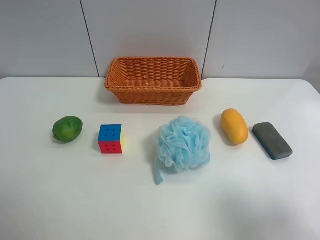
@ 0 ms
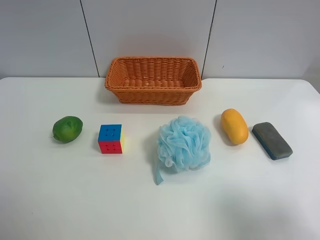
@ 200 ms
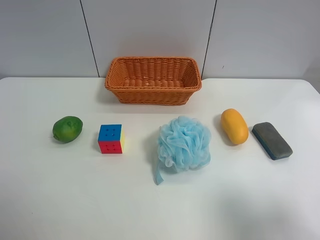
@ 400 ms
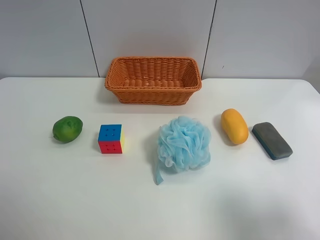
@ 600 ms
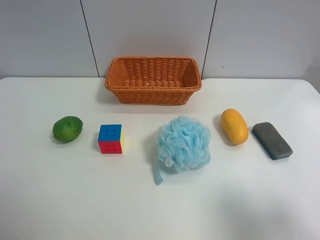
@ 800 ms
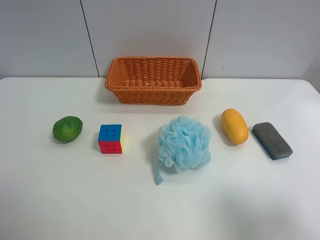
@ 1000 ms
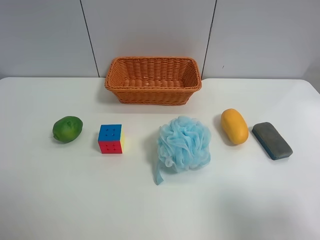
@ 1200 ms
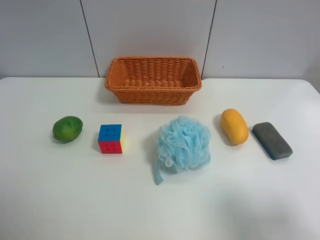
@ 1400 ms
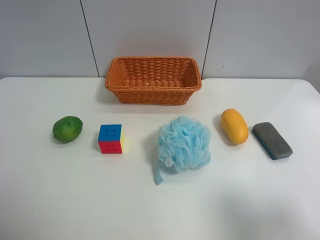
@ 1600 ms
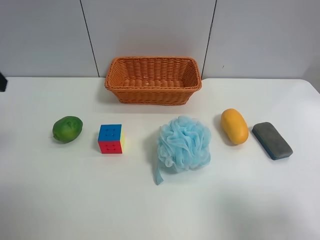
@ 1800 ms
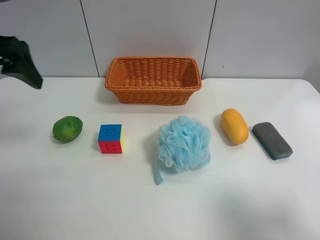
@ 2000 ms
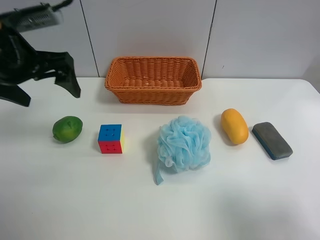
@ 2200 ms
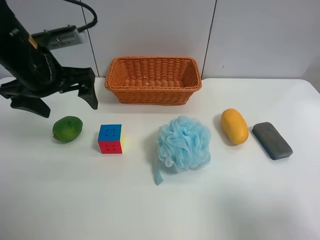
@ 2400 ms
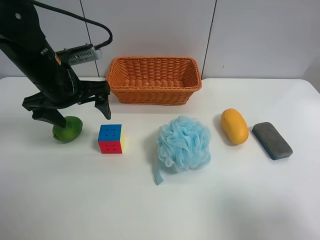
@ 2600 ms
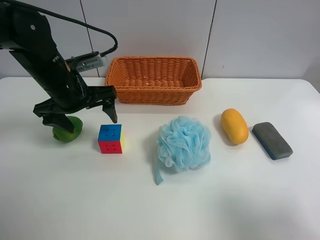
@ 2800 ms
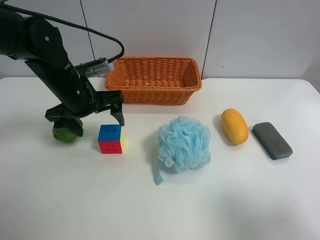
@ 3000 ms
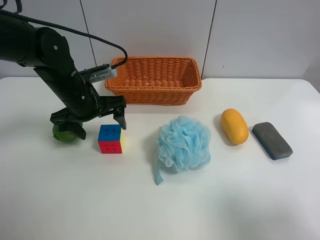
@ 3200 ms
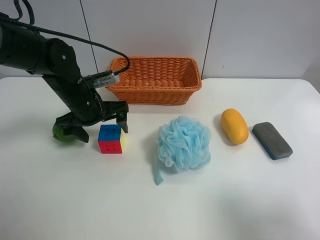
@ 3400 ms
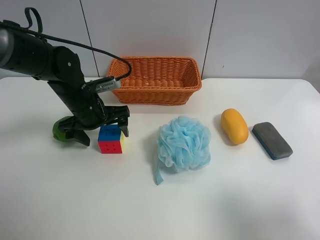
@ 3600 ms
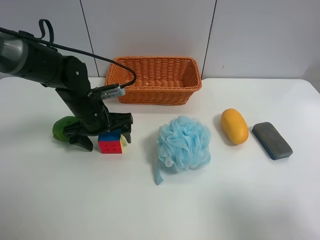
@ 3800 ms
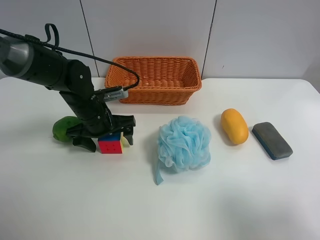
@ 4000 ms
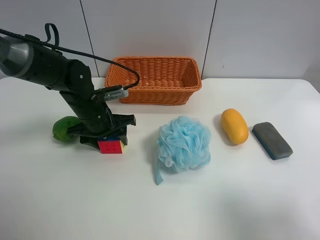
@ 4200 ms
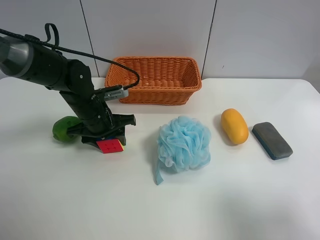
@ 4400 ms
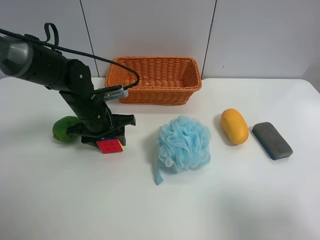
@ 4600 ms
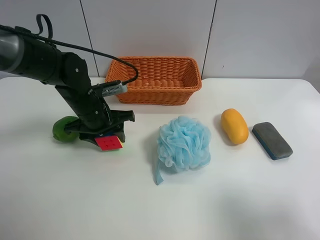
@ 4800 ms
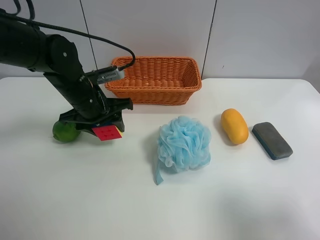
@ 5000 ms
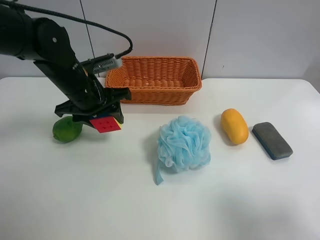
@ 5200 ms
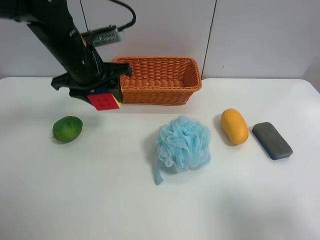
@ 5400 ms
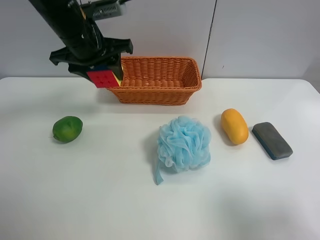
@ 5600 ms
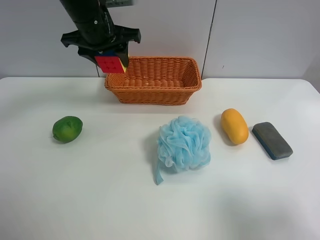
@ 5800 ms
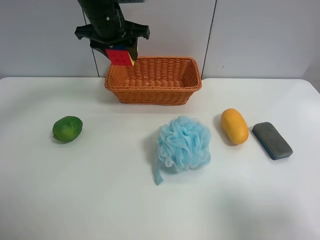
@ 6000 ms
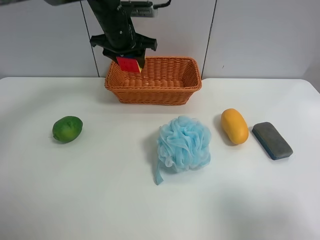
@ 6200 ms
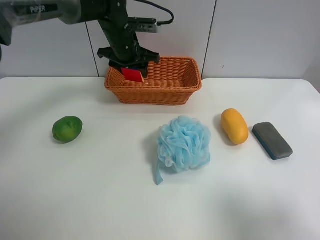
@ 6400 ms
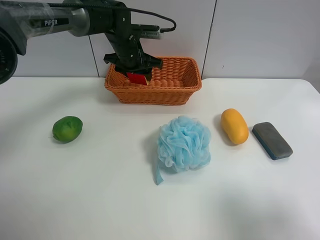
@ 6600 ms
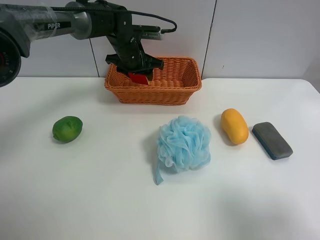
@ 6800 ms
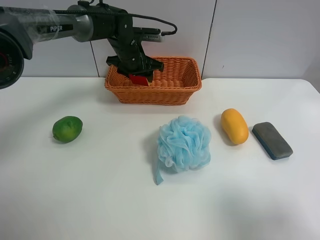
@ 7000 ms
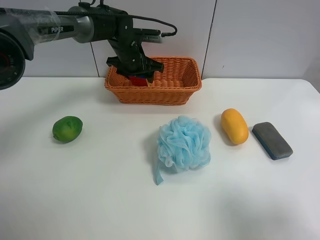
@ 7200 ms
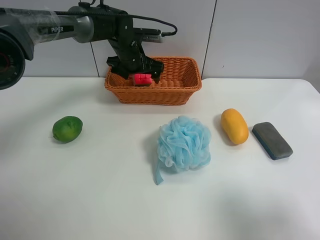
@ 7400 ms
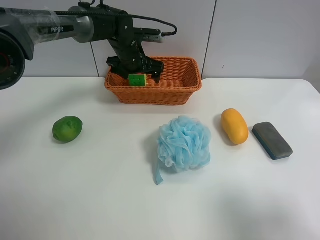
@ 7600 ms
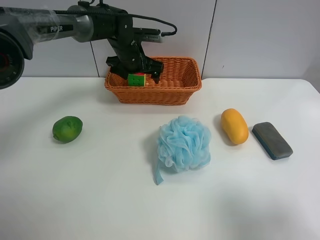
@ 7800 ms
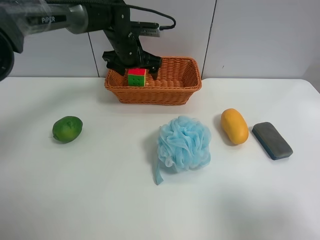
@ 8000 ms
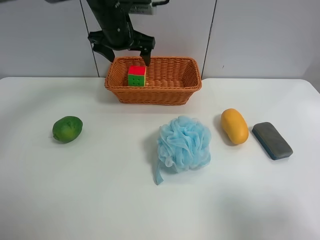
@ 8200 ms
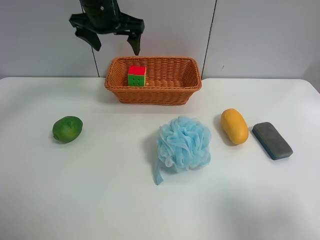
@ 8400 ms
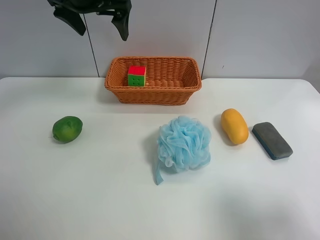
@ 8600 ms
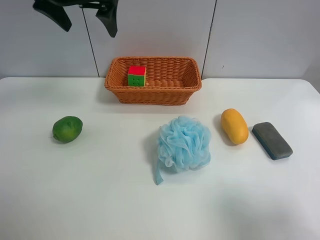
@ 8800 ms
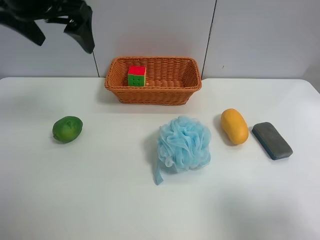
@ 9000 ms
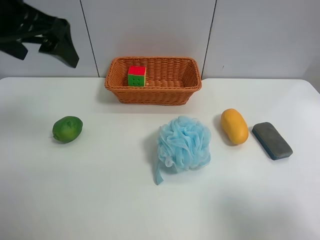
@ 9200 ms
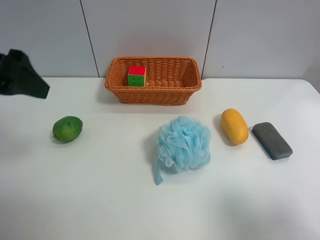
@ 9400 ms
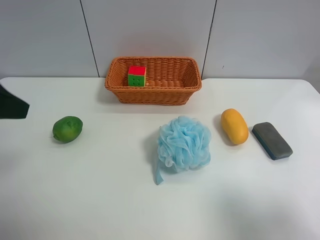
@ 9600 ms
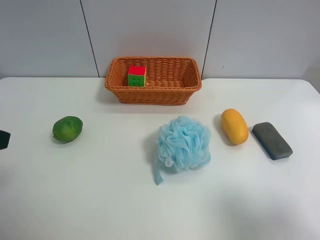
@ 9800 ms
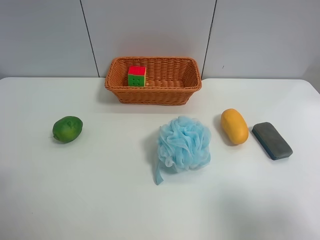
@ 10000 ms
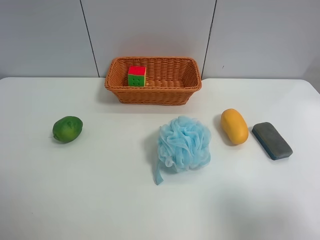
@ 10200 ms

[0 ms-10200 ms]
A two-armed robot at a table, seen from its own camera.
Task of the whole recording: use the left gripper to grab items from the table and place them in the basket.
Step, 0 ms to 4200 ms: Grasp the Rubik's Cube with the left gripper.
Step, 4400 ms to 8000 ms: Place the Rubik's Cube into the basket with the left gripper.
1400 ms to 3000 ms: The left gripper goes approximately 30 cm forward, downward and to the right.
3000 ms to 4400 ms: The left gripper is displaced downward by roughly 5 cm, and closes.
4400 ms to 5800 ms: The left gripper travels upward by some 15 cm.
5800 ms to 7200 ms: The left gripper goes roughly 15 cm downward and forward.
7200 ms to 8800 ms: The left gripper travels upward and backward by about 25 cm, and opens up.
8800 ms to 10200 ms: The left gripper shifts some 35 cm backward and to the left.

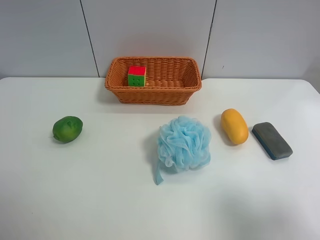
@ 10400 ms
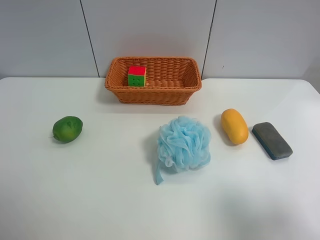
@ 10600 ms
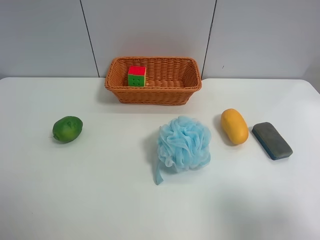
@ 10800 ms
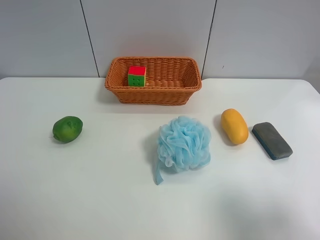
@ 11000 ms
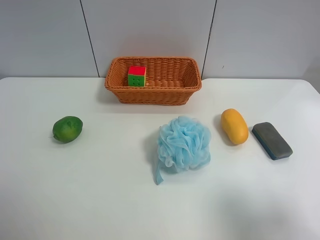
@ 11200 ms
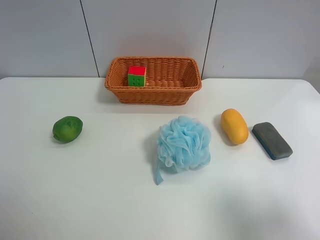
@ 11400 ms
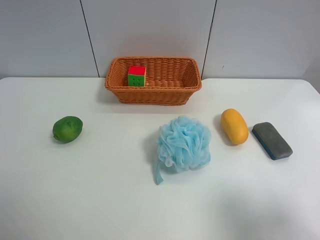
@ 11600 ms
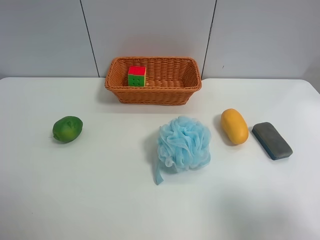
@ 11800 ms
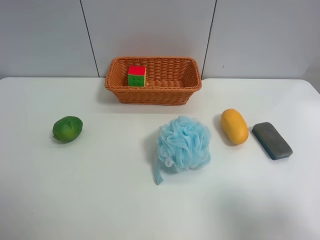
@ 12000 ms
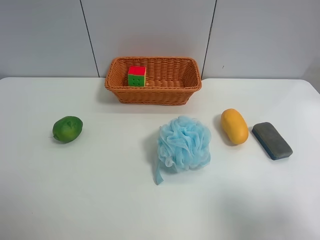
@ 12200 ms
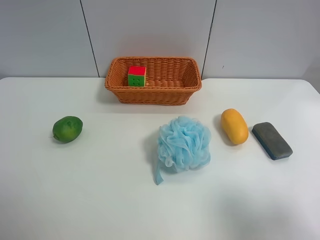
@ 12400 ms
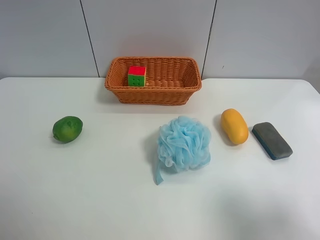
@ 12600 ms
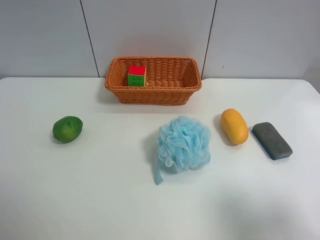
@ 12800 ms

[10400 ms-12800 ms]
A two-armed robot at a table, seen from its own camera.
Task of the whole recording: use the left gripper to grab items from the table and place them in the basket.
11600 ms to 12800 ms: Both grippers stay about where they are.
